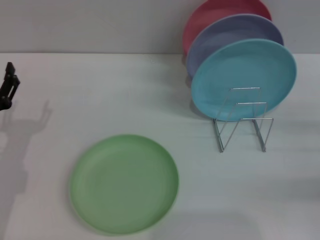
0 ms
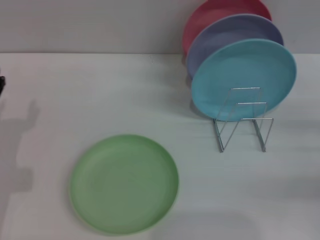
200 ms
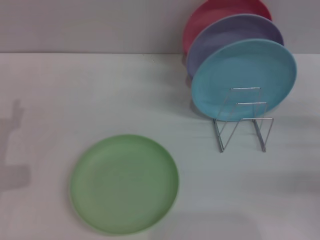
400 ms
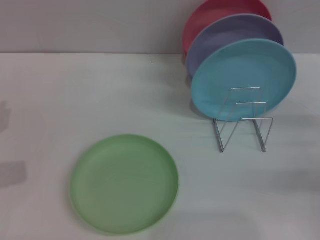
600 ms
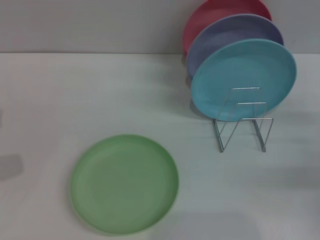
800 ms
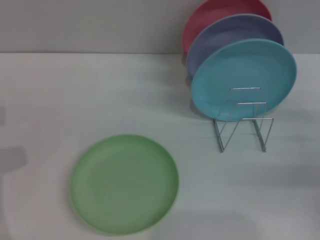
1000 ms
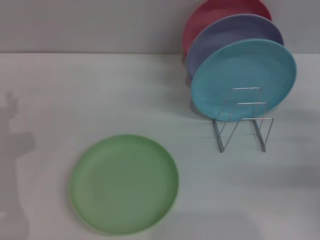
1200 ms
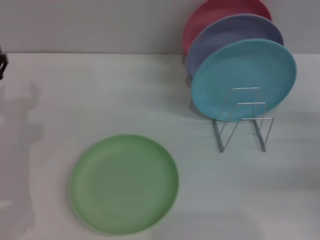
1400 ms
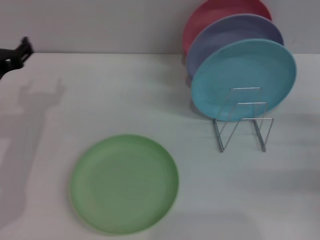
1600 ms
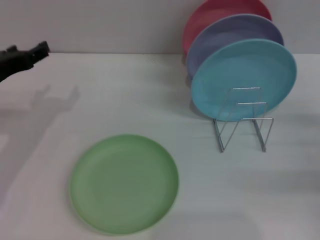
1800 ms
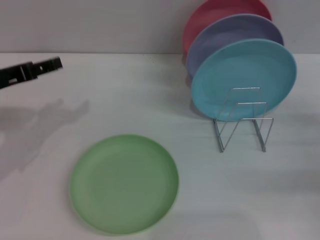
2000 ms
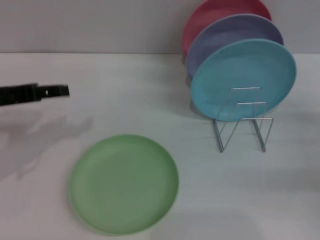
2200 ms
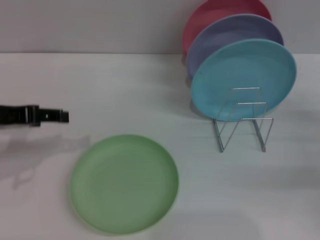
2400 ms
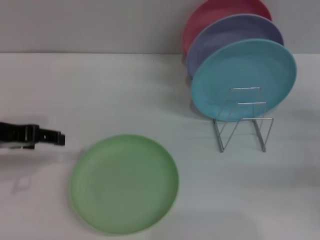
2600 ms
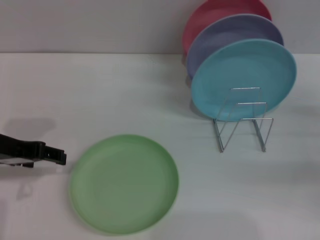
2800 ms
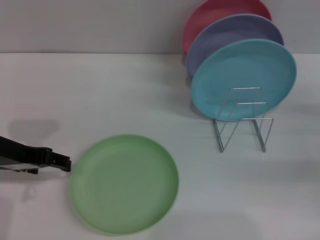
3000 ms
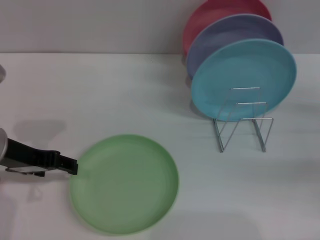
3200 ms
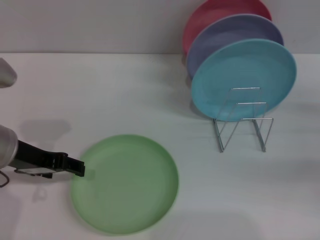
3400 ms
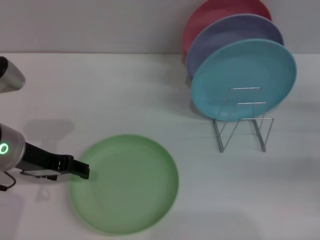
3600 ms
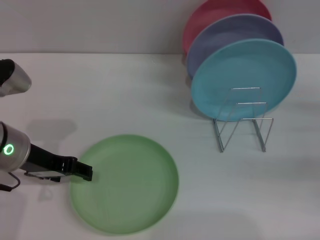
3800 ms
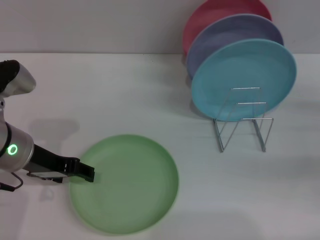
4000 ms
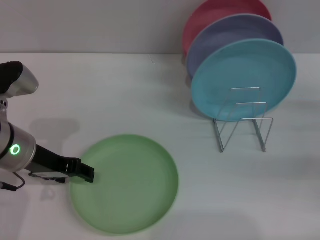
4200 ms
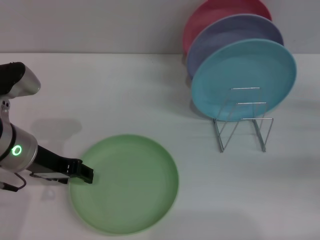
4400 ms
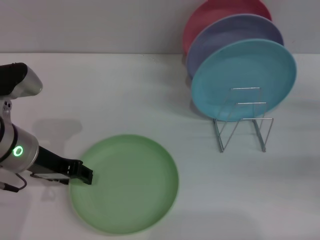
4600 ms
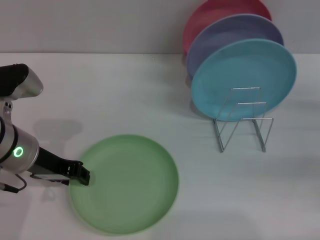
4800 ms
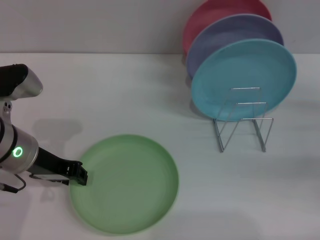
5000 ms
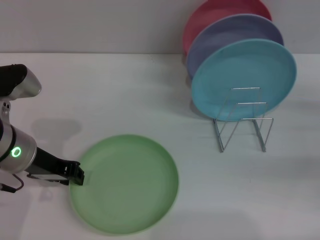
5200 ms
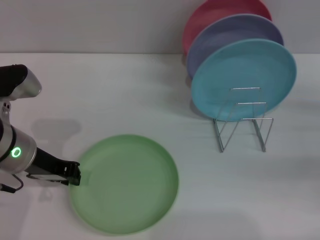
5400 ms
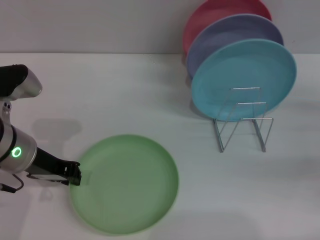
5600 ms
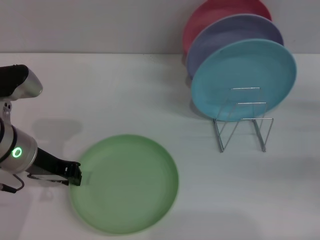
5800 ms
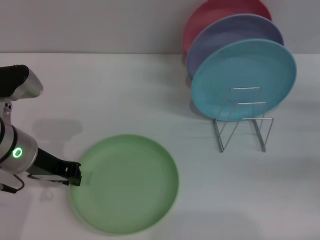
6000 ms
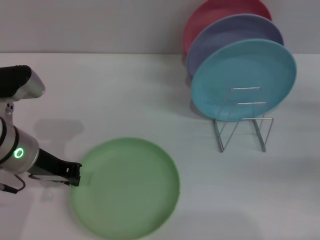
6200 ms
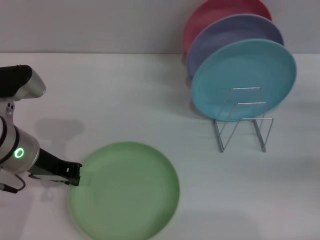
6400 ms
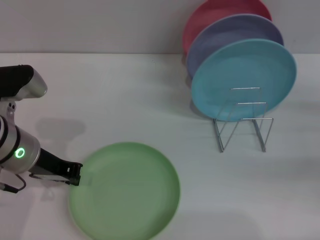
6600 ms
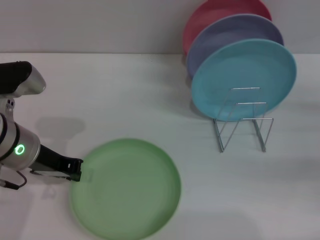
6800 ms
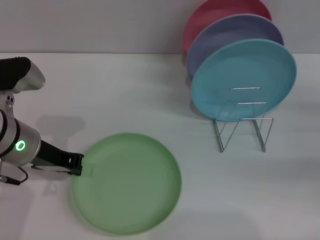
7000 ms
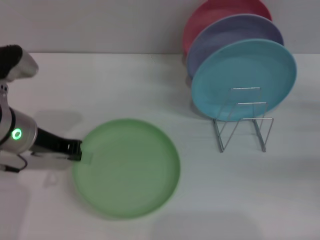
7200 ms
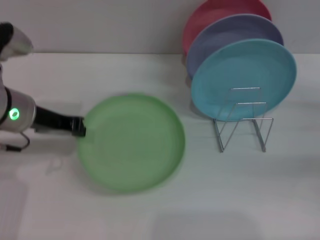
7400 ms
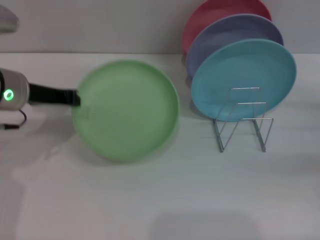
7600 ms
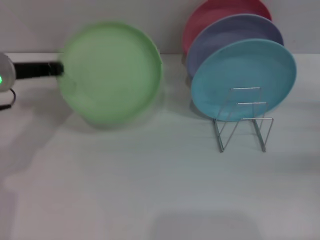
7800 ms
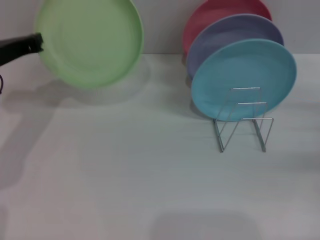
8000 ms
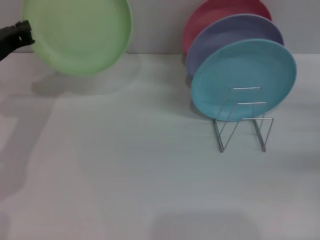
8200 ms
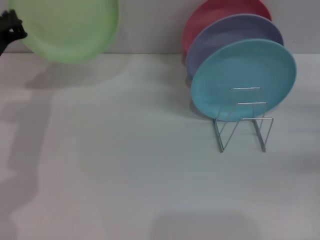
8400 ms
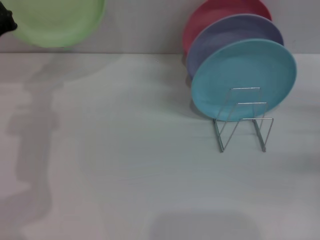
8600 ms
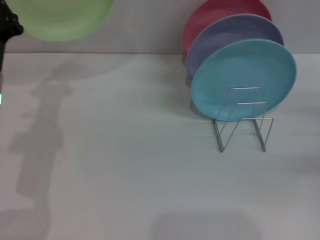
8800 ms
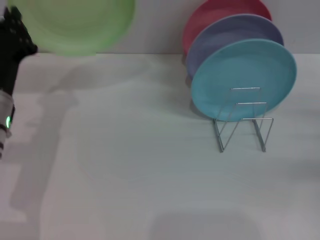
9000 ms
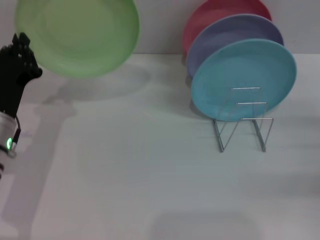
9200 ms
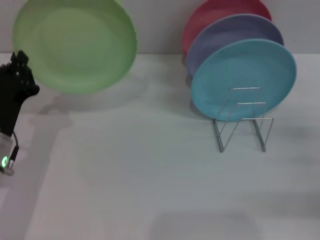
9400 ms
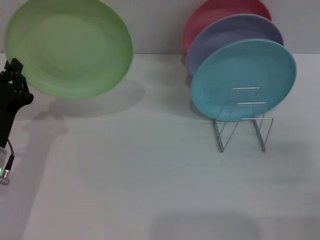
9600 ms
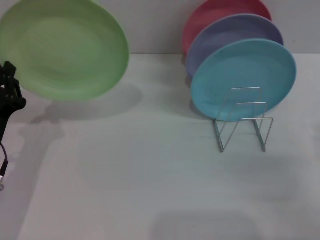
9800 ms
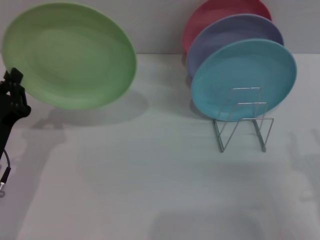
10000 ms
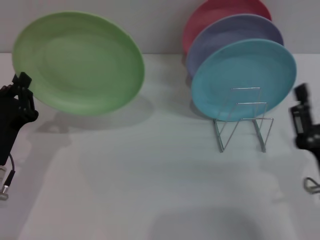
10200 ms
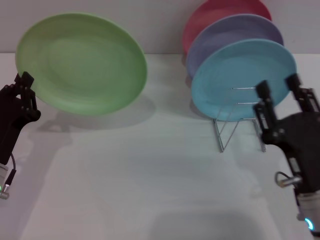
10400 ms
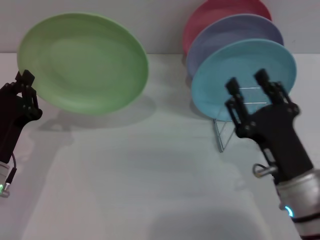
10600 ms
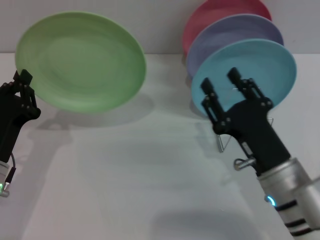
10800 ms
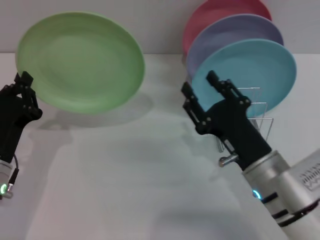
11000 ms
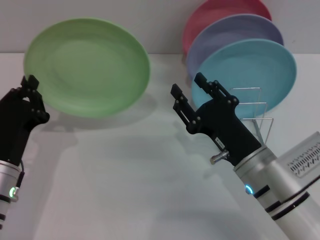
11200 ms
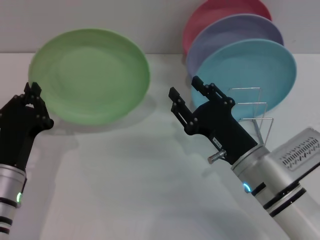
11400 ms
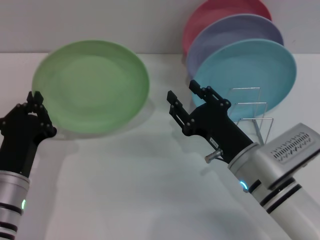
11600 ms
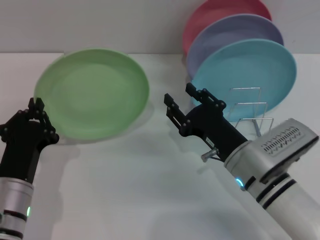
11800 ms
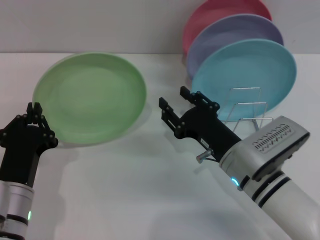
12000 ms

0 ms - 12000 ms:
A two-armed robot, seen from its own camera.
Task of the whole recording: Grip the plate with one hand, pass it to the other, then set it on the shelf.
Step, 0 ms - 7800 ms: Pick up the plate with the left gripper.
0 ms - 1600 ms: The left gripper is displaced upward and forward by approximately 10 cm.
1600 ms - 3000 ms: The left gripper shifts by about 5 cm.
3000 ms - 4400 ms: The left gripper shifts by about 5 cm.
4400 ms - 6000 ms: The left gripper closes its fingers.
6000 ms - 7600 ms: The left gripper changes place by roughly 5 cm.
7600 ms - 9000 ms: The left gripper shifts some 5 cm downward.
9000 ms - 10400 ms: The right gripper moves to the left and backward, approximately 20 cm; the left gripper shifts about 10 cm backward and downward.
10400 ms - 12000 ms: The left gripper ends up some 5 cm from where it was. The right gripper moves forward and to the left, roughly 10 cm.

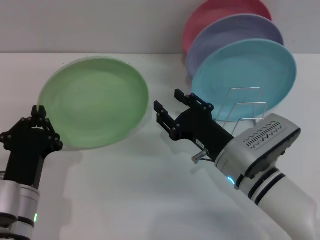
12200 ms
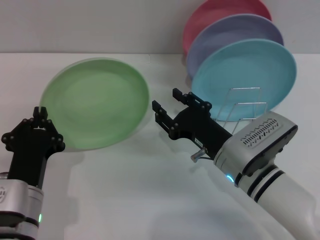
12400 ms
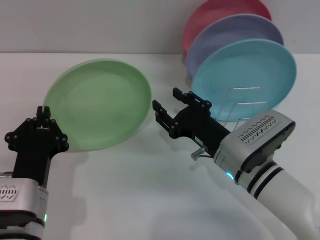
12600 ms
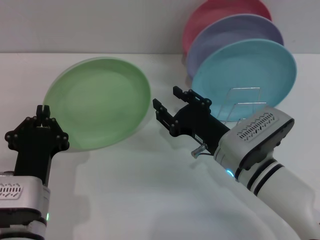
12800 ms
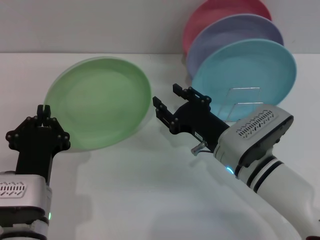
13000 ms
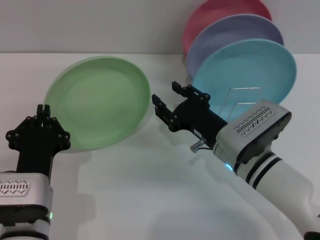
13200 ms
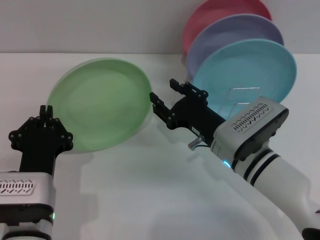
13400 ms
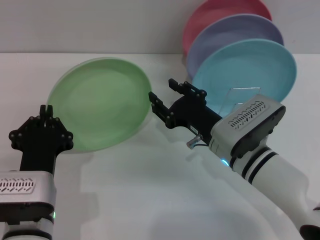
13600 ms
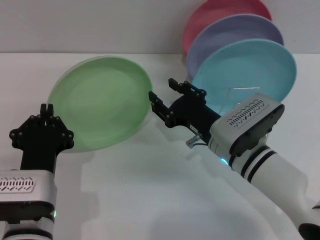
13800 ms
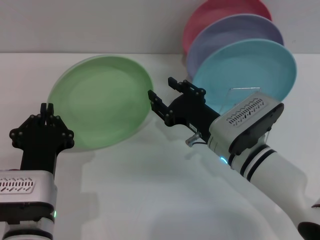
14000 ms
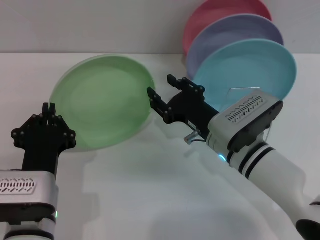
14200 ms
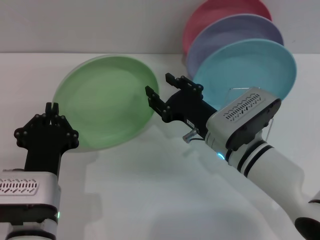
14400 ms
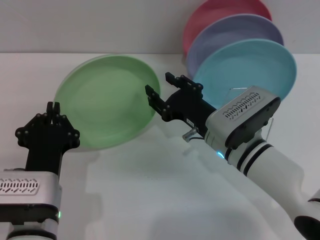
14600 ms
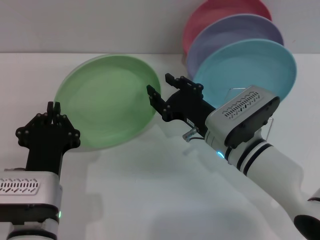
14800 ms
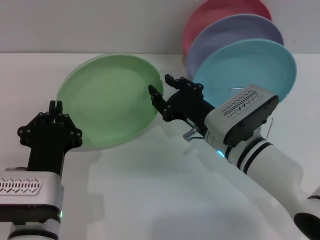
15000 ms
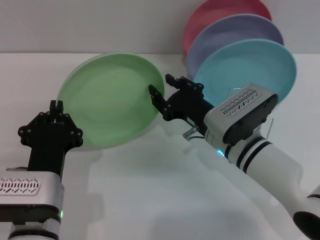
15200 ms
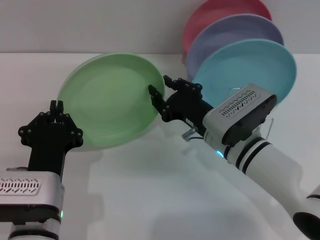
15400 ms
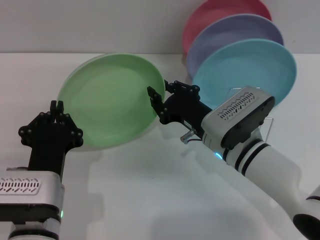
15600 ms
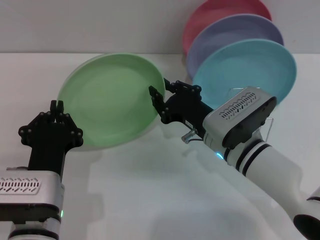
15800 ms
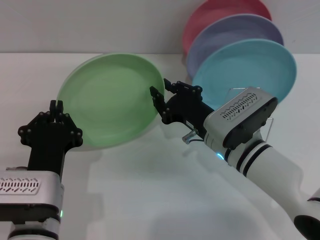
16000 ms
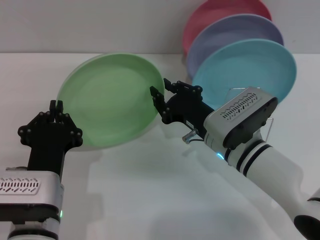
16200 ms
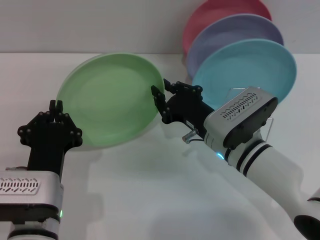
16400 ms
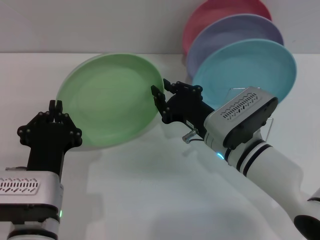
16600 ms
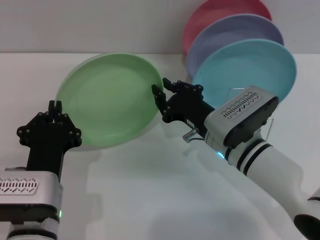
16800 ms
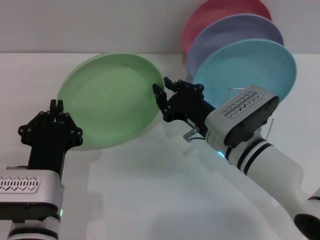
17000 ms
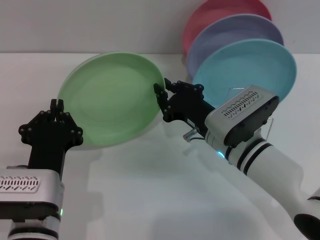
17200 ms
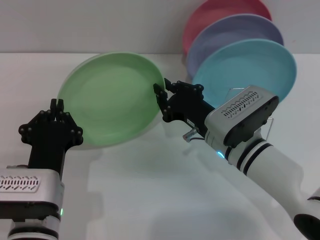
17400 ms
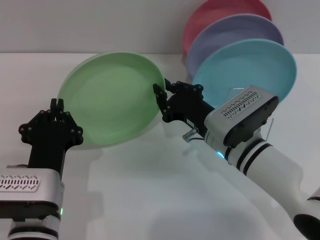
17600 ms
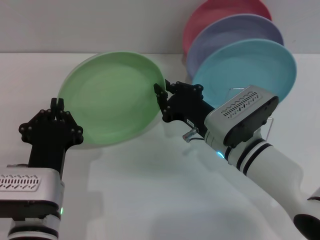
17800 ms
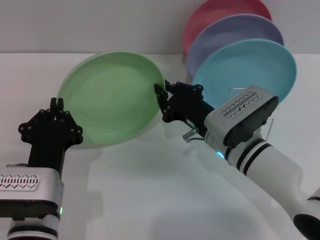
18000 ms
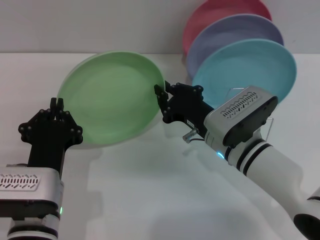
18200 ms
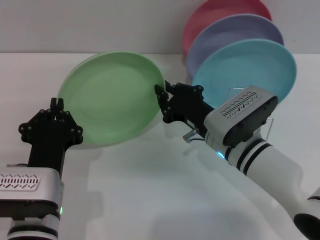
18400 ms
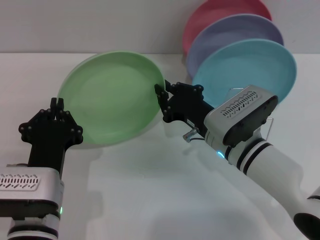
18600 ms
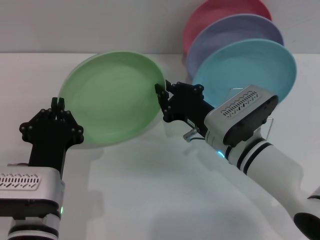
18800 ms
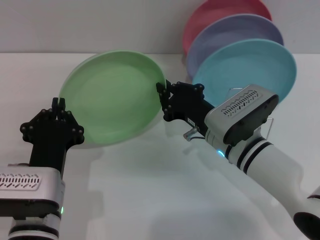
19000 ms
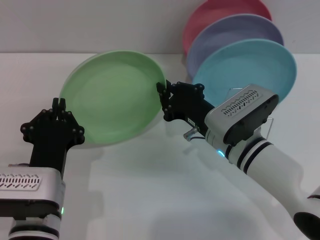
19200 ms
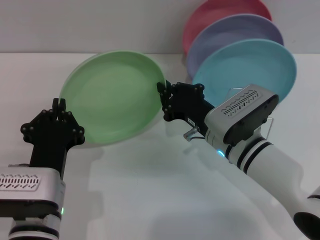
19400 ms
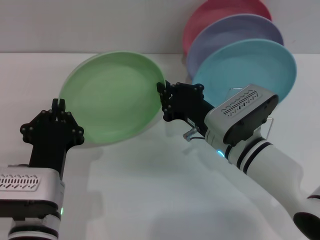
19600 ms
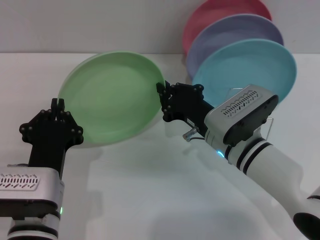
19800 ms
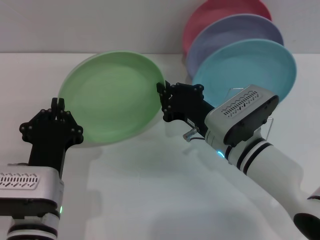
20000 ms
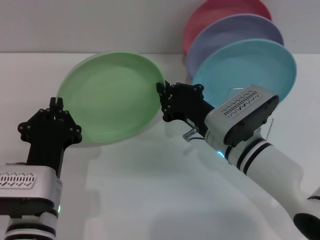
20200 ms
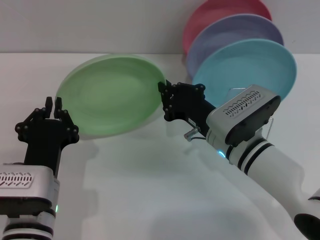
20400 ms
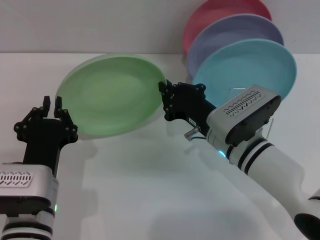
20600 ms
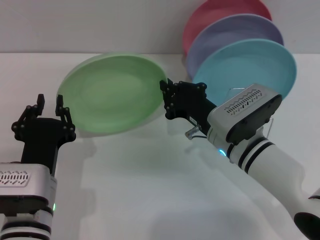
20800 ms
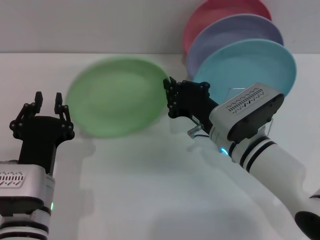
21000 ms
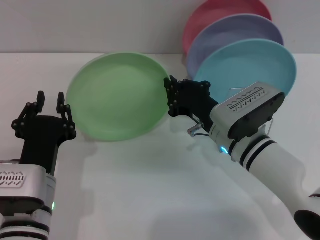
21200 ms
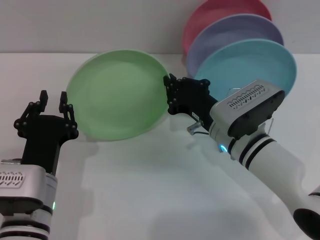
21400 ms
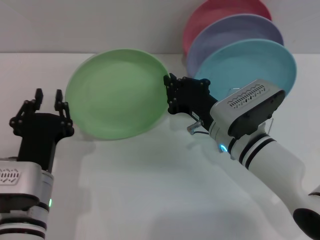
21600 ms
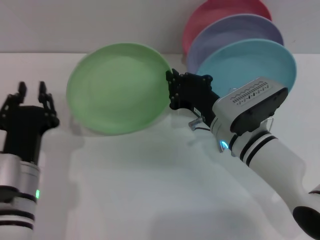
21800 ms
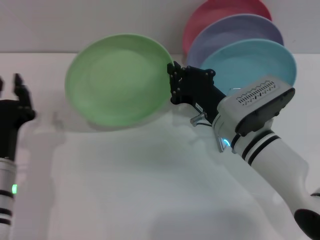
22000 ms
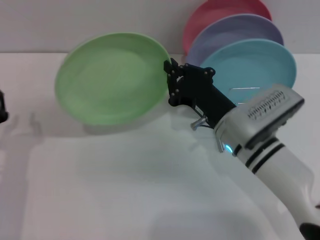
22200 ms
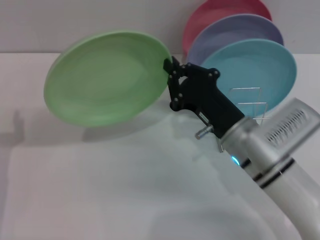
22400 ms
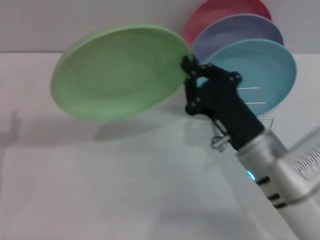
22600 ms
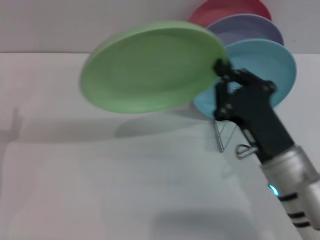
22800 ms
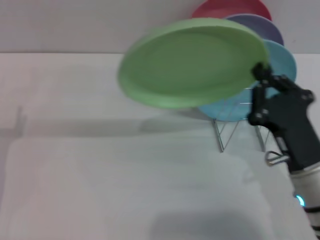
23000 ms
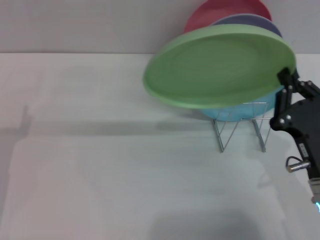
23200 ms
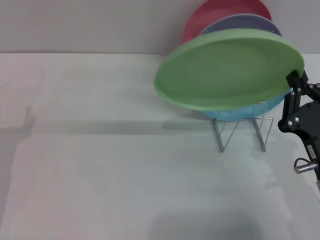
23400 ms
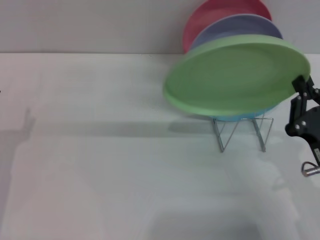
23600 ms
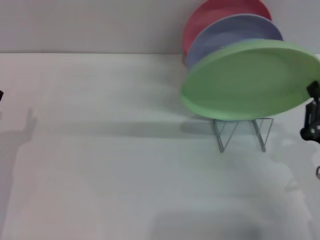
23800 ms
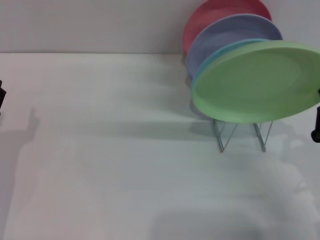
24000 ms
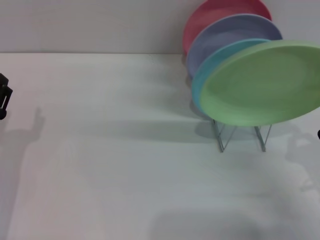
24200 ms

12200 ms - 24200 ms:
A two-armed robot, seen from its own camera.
Task of the whole recording: Grip the plate with one hand, pass it to the other, then set it on the shelf.
Step, 12200 ms - 21200 ms: Pass the plate from the left gripper to the right gripper.
12200 ms - 13800 ms: There are only small adjustments of the grippers.
13800 ms - 15200 ms: Both grippers stay about where they are.
15200 ms - 16600 ms: The right gripper closes its fingers.
16600 ms - 19800 ms: The two grippers keep their place.
19800 ms - 21200 ms: Both grippers stay about where they are.
21200 ms - 22600 ms: The left gripper travels to the left by roughly 15 cm; the right gripper shifts some 5 cm backward.
22600 ms - 24200 ms: The right gripper travels to the right and backward by approximately 15 cm.
